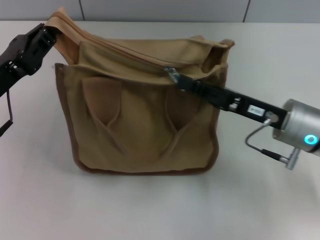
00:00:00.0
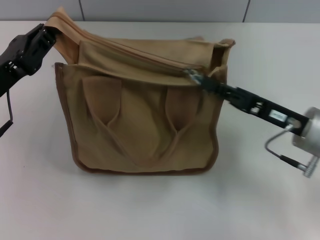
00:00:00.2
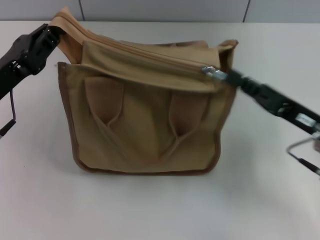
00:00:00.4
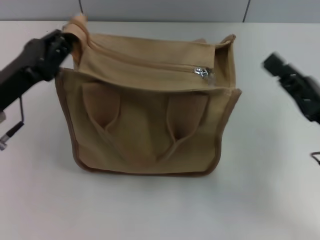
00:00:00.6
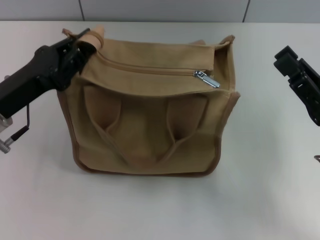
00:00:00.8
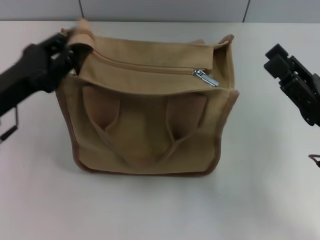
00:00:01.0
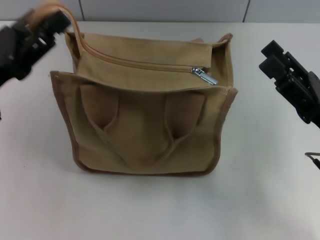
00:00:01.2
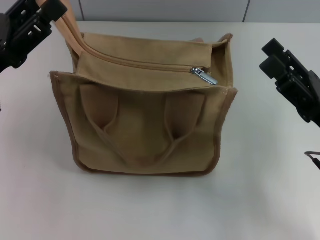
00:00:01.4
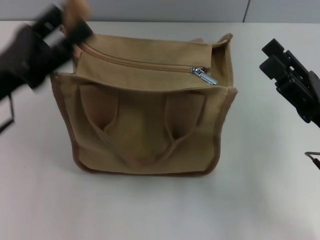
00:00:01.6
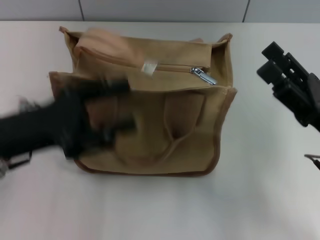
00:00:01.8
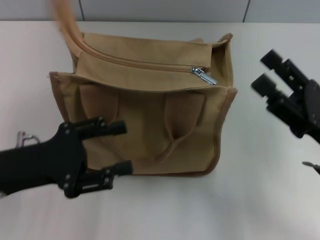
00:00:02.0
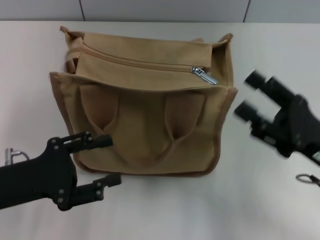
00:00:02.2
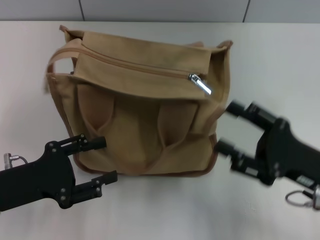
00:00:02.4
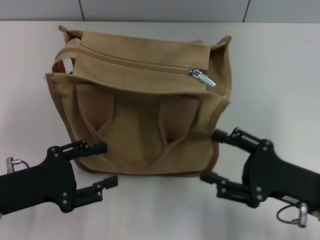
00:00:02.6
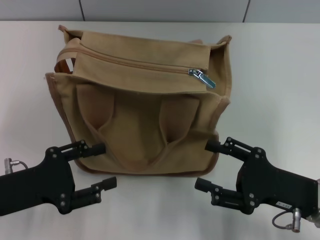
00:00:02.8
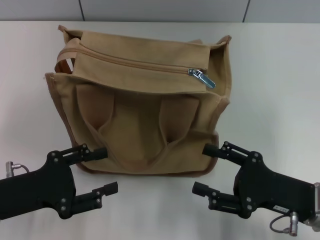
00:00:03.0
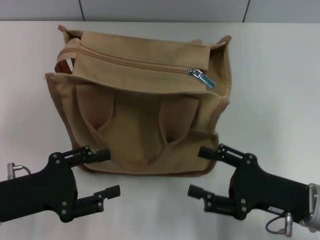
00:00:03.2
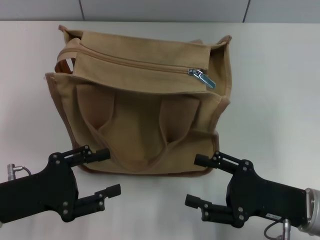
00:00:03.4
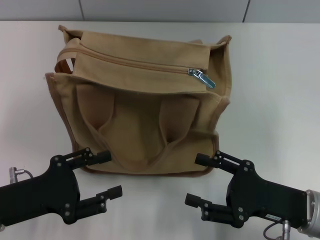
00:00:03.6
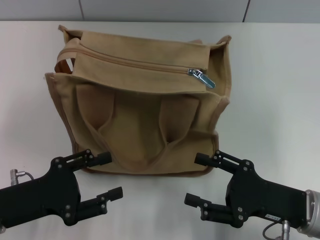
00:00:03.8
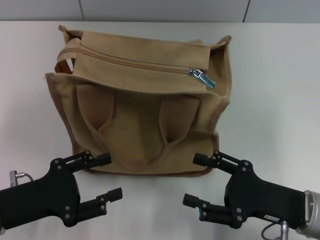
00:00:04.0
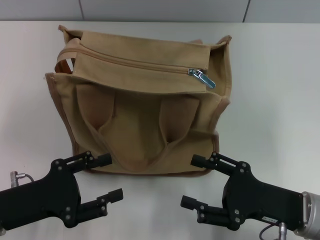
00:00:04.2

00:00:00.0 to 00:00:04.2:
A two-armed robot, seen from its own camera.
Step, 00:00:00.6 to 00:00:01.6: Grab the zipper with your left hand.
00:00:00.0 to 00:00:01.4: The left gripper opens; the right gripper is displaced backward and to the right by approximately 10 cm, and opens.
00:00:01.4 to 00:00:02.8: The left gripper travels downward and backward by roughly 10 cm, while the right gripper changes place by roughly 5 cm.
00:00:02.8 to 00:00:04.2: The grippers make only small movements.

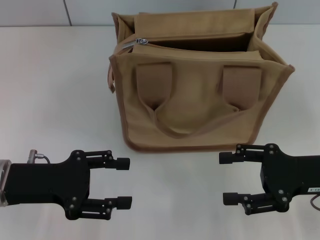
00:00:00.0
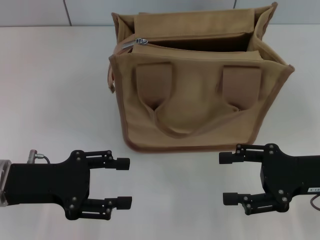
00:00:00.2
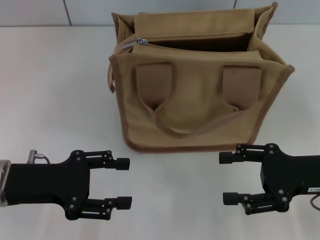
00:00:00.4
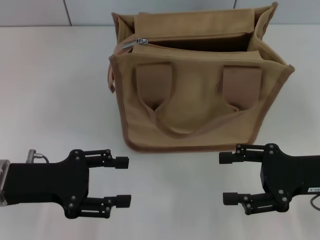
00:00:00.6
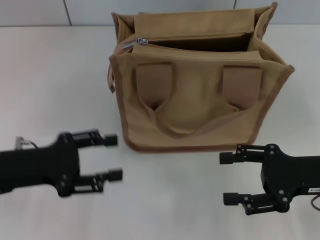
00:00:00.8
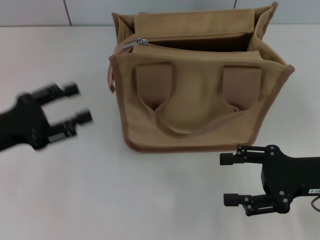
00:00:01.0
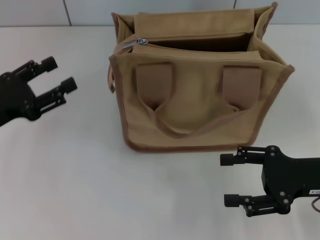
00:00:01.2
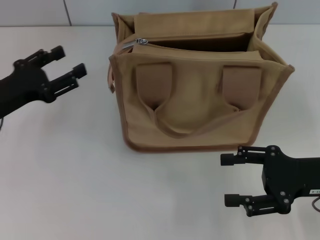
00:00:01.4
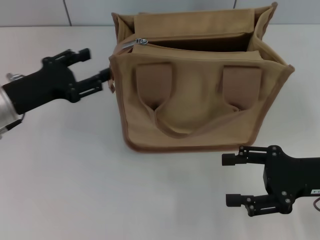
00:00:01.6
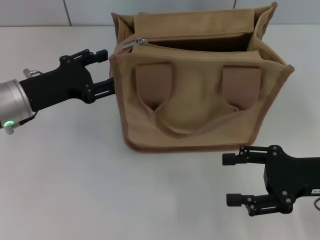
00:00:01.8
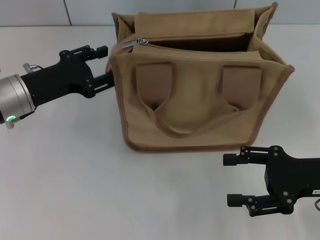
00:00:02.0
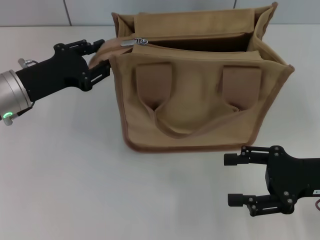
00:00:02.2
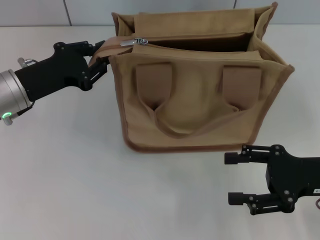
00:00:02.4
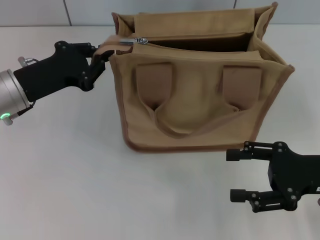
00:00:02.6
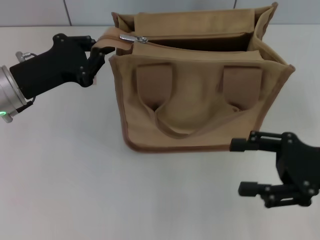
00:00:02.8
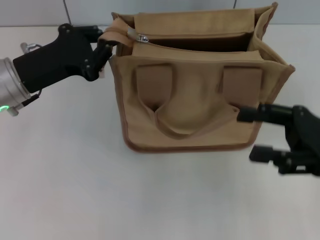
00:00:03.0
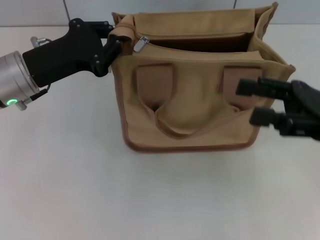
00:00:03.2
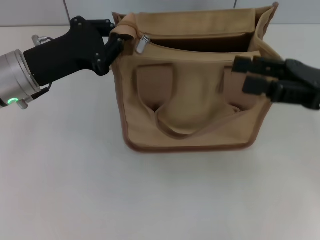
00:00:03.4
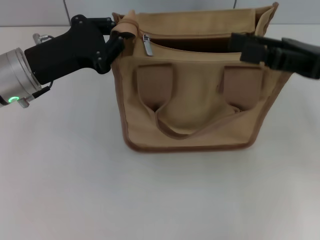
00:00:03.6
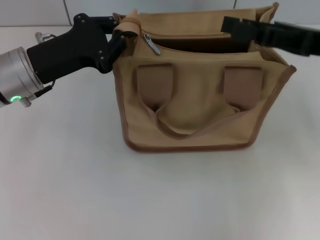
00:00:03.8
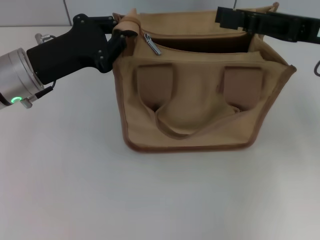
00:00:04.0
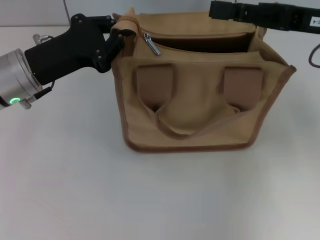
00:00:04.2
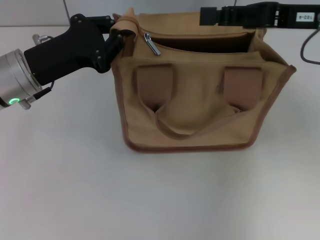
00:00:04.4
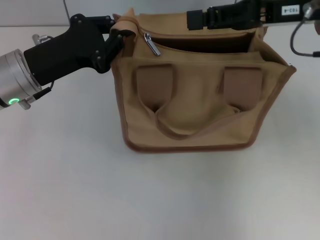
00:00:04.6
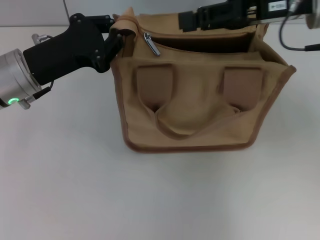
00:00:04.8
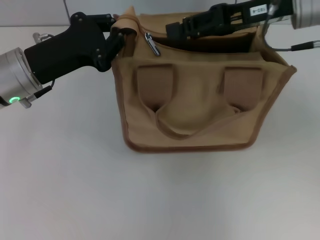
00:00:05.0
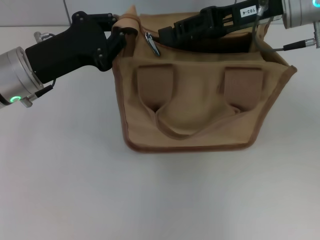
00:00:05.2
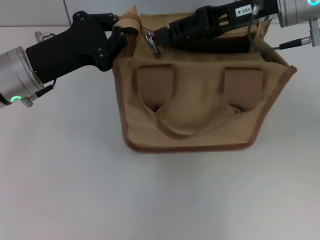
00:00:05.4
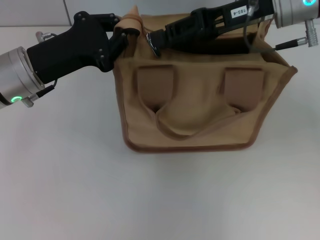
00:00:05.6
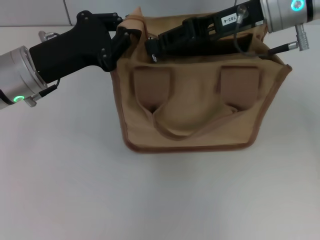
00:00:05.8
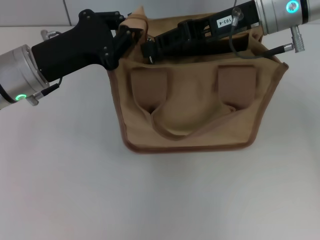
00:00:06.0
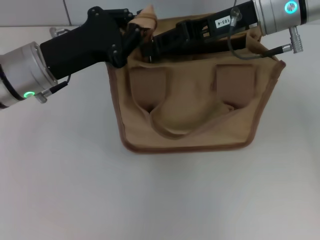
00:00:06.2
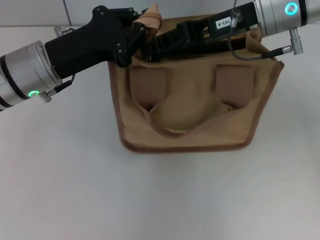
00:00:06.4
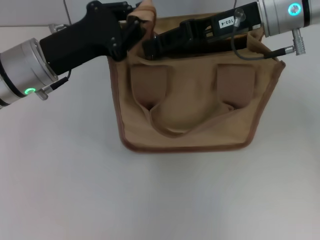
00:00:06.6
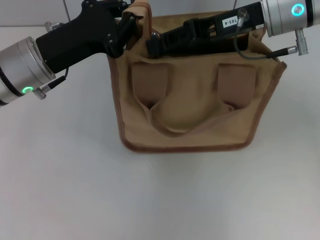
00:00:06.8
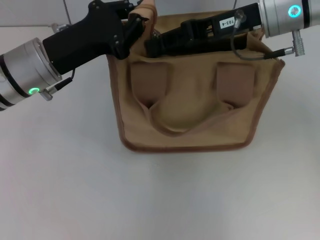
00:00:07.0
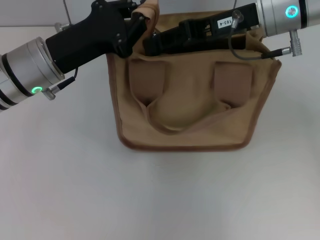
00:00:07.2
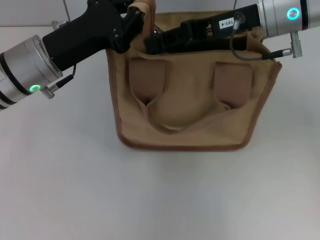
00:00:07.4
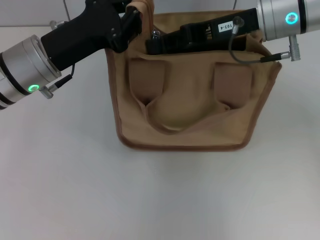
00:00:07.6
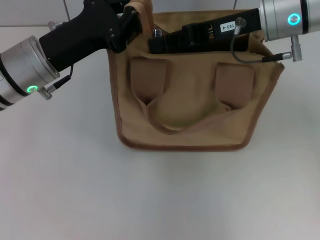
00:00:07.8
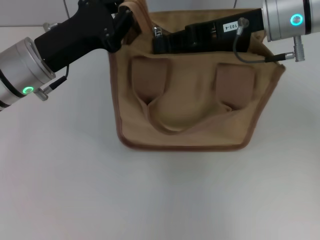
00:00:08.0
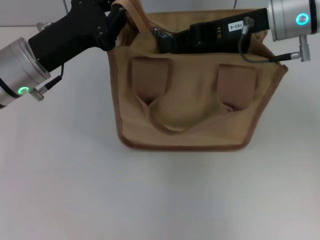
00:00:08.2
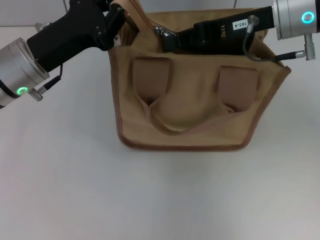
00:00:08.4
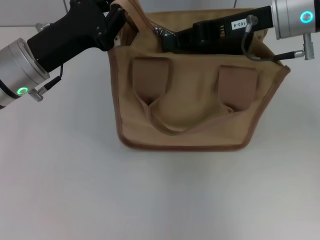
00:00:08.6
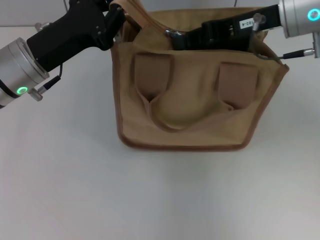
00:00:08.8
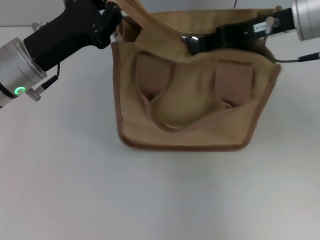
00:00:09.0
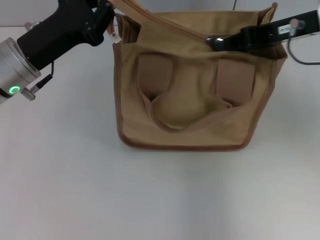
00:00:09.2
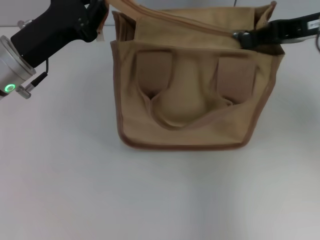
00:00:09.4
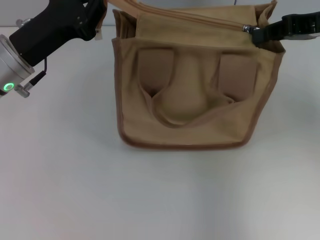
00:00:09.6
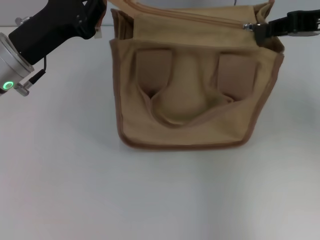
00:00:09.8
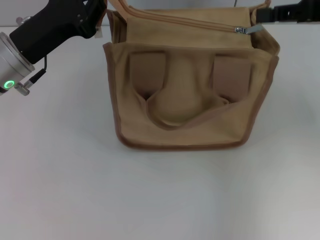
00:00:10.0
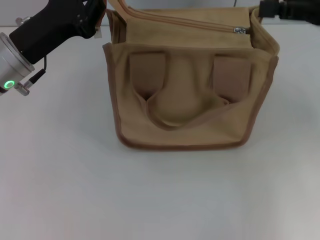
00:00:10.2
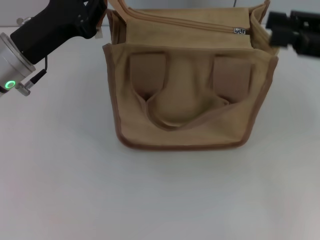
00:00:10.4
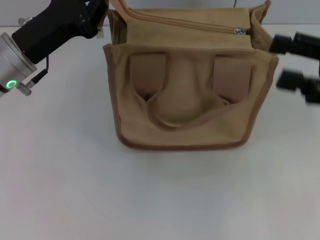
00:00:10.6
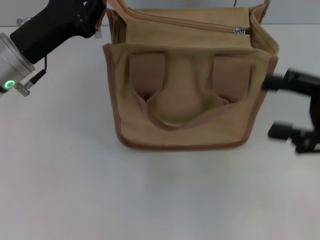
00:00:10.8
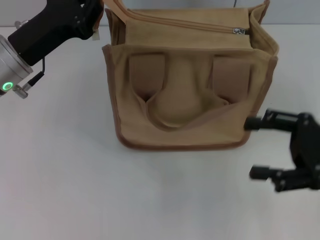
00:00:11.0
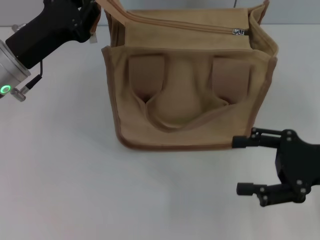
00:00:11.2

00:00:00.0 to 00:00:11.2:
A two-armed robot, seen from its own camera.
Step, 00:00:00.0 to 00:00:10.0: Pull up the zipper with your right hand.
00:00:00.0 to 00:00:01.6: The left gripper travels forward by roughly 10 cm.
00:00:01.6 to 00:00:03.2: The left gripper ends up roughly 5 cm from where it was, and closes its fingers, while the right gripper travels upward by roughly 5 cm.
00:00:03.2 to 00:00:04.8: The right gripper shifts some 15 cm forward, upward and to the left, and closes.
00:00:04.8 to 00:00:06.4: The right gripper shifts about 5 cm to the left.
00:00:06.4 to 00:00:08.0: There are only small adjustments of the grippers.
00:00:08.0 to 00:00:09.6: The right gripper travels to the right by about 10 cm.
00:00:09.6 to 00:00:11.2: The right gripper goes approximately 20 cm downward and backward, and opens its fingers.

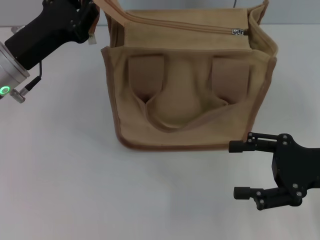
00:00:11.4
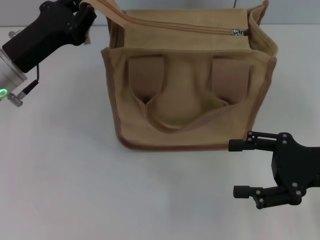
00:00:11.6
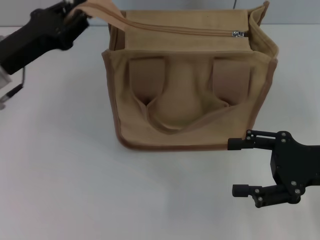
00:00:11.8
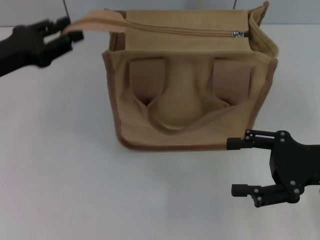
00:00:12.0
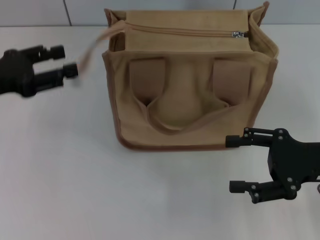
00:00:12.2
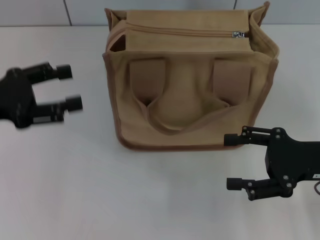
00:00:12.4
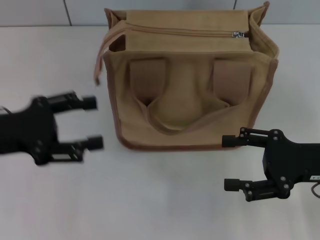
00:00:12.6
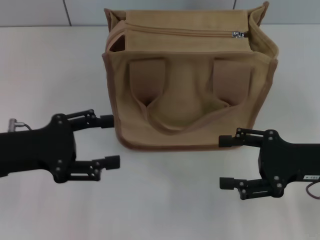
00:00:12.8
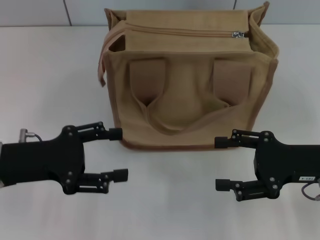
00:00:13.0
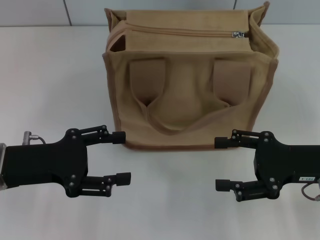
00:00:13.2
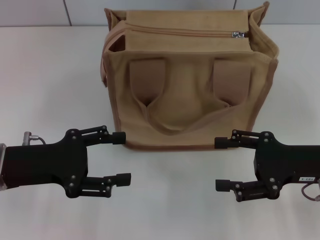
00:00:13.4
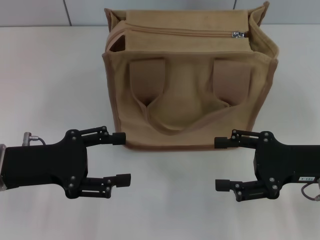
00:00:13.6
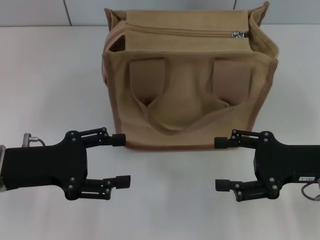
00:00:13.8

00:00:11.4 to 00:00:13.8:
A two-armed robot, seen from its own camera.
00:00:11.4 to 00:00:12.6: The left gripper is displaced backward and to the left by approximately 10 cm, and opens up.
00:00:12.6 to 00:00:13.8: The grippers make only small movements.
